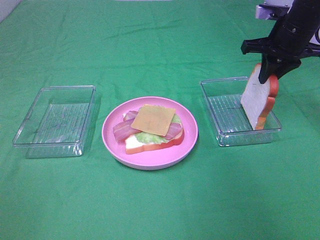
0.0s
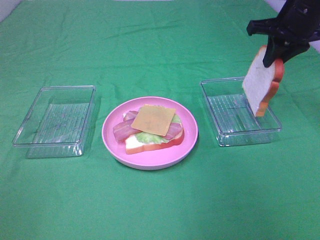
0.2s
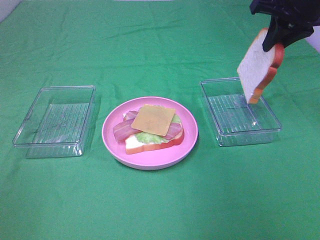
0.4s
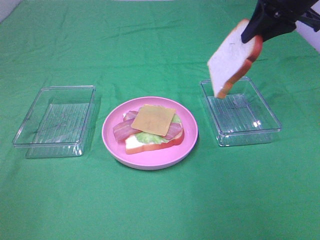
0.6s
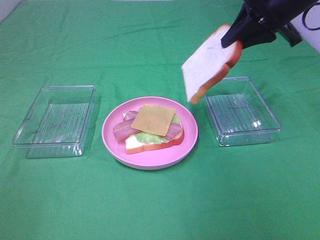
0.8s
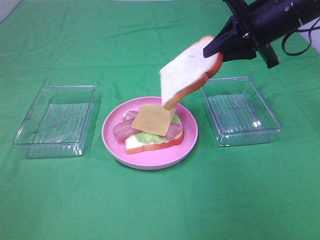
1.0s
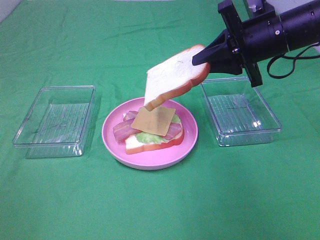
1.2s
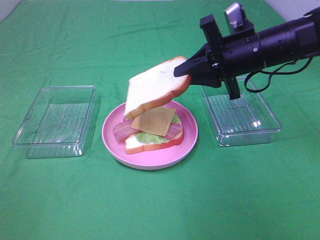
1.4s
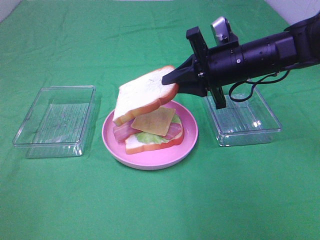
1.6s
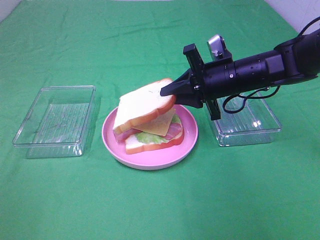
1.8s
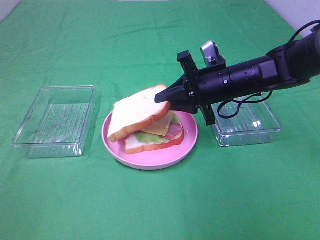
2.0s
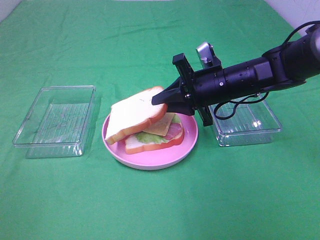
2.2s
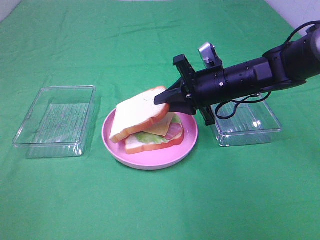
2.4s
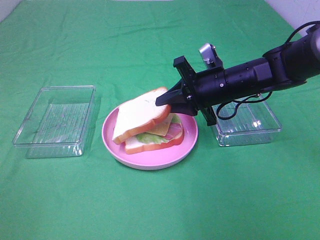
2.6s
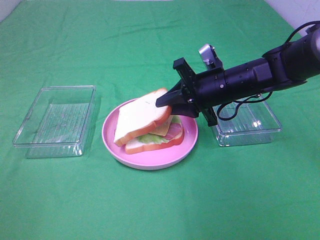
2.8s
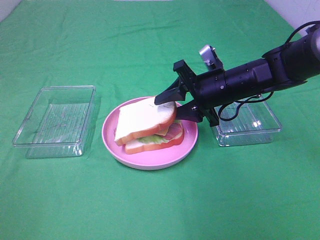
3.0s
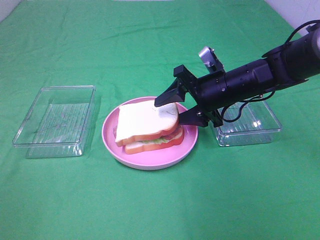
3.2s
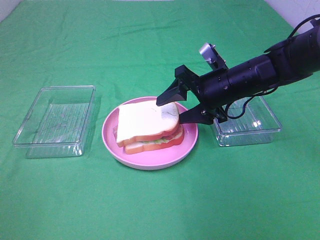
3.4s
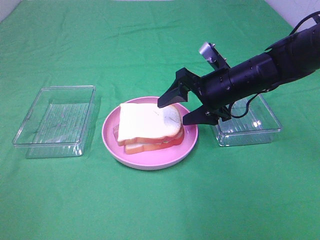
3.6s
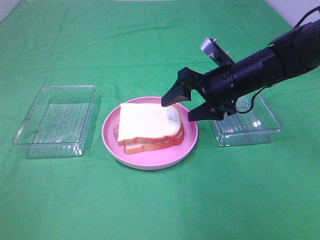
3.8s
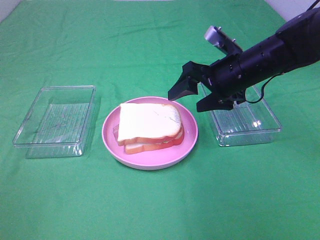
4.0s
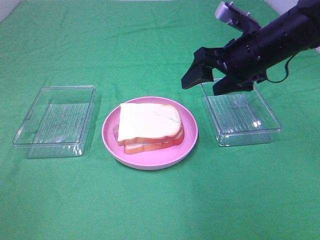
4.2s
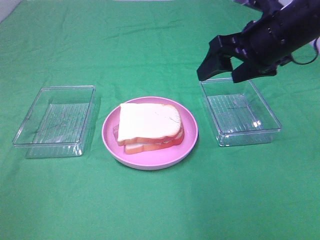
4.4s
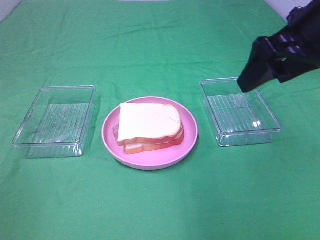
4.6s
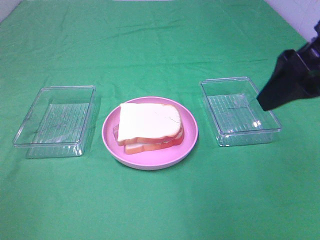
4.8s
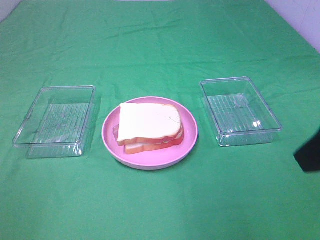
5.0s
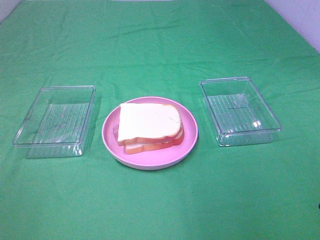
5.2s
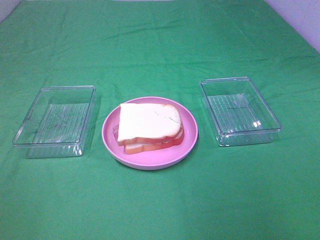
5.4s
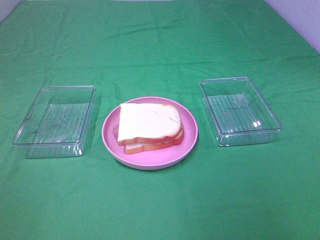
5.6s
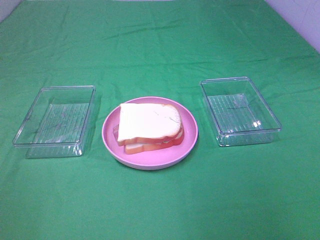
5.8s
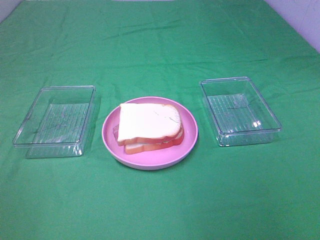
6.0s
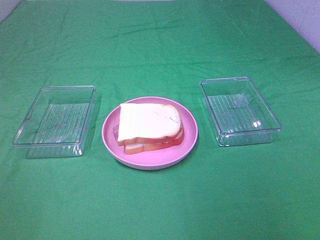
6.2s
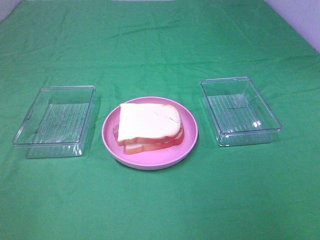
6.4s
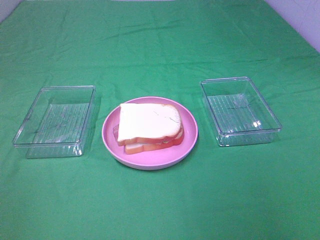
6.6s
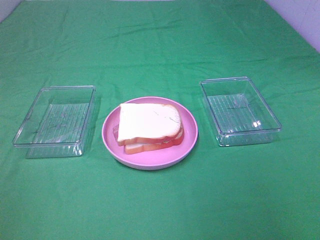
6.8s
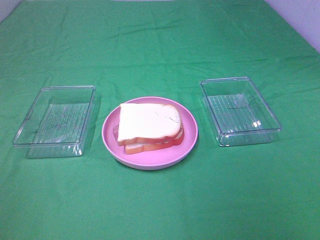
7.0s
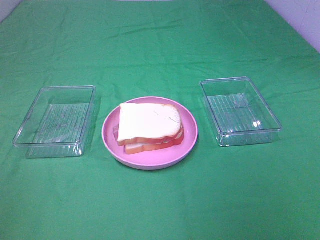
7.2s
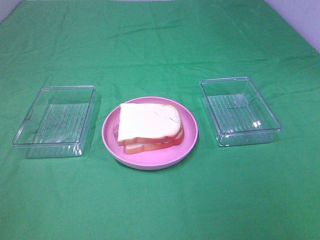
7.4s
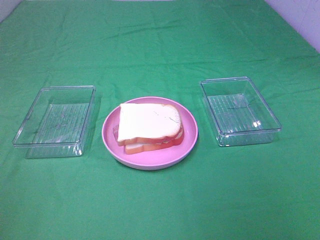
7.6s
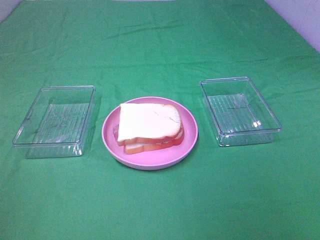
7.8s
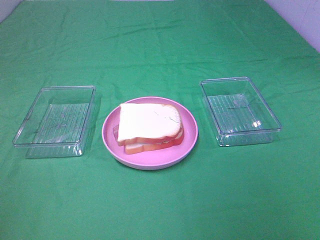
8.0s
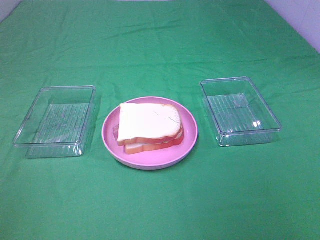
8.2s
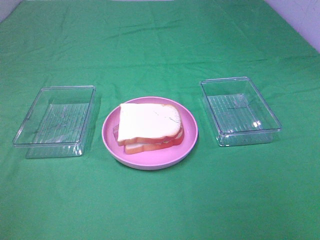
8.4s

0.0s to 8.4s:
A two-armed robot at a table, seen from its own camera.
Task of the whole recording: Make sandwiches.
Step, 0.0s to 3.6s: Right hand:place the bread slice on the cheese slice.
0.0s to 1.4s: The right gripper heads to the left and backward, covering about 10 cm, and goes upward and returns, approximately 10 cm each way.
1.4s to 2.8s: The right gripper shifts approximately 5 cm downward.
2.8s to 4.2s: The right gripper travels upward by about 10 cm, and opens its fingers.
4.2s to 5.6s: The right gripper is displaced backward by approximately 30 cm.

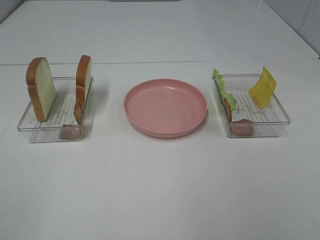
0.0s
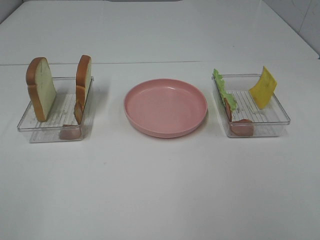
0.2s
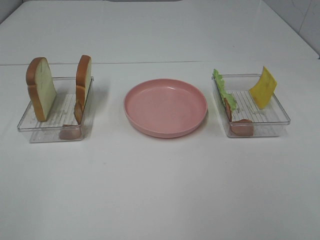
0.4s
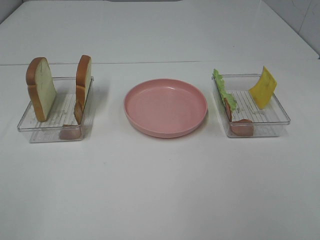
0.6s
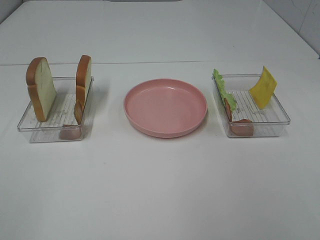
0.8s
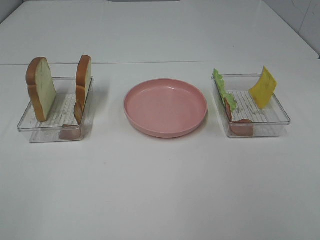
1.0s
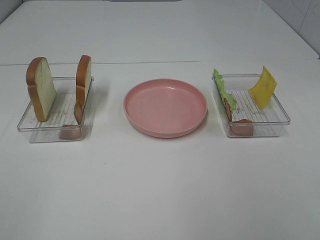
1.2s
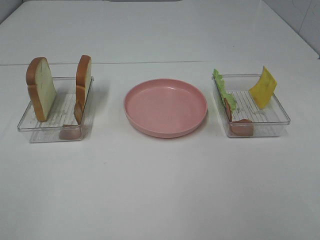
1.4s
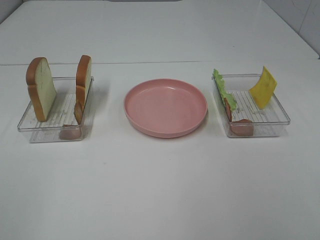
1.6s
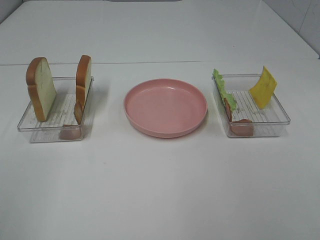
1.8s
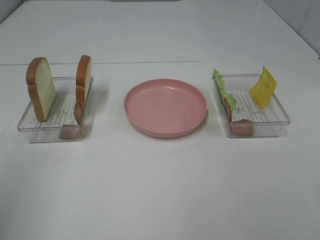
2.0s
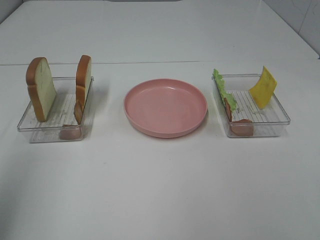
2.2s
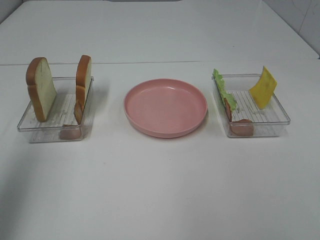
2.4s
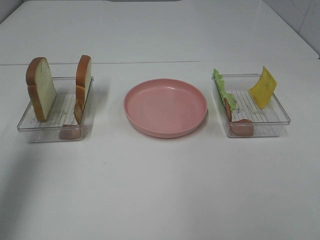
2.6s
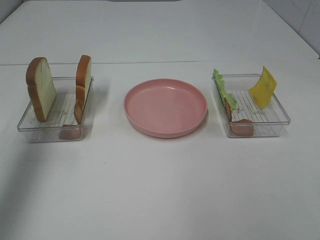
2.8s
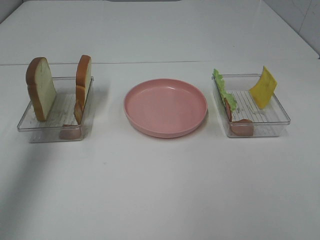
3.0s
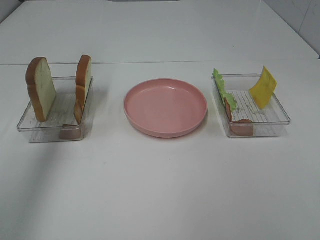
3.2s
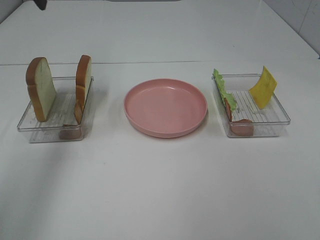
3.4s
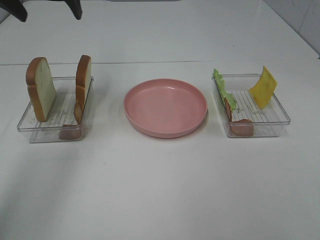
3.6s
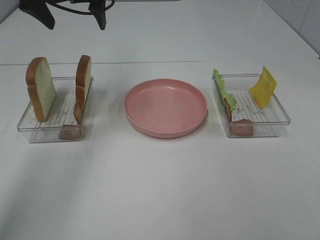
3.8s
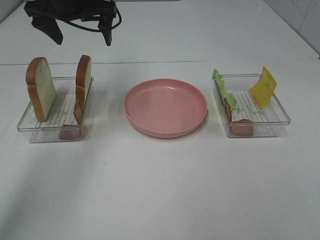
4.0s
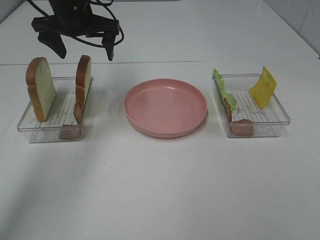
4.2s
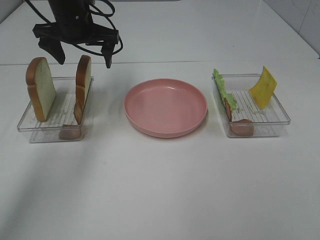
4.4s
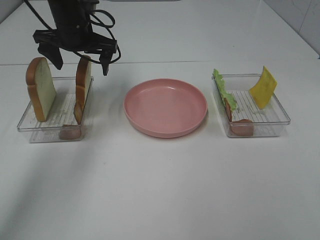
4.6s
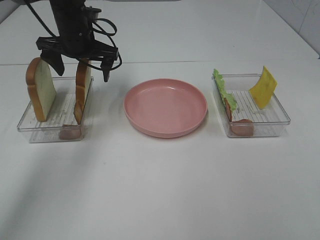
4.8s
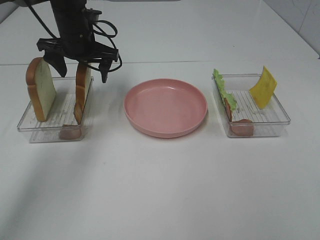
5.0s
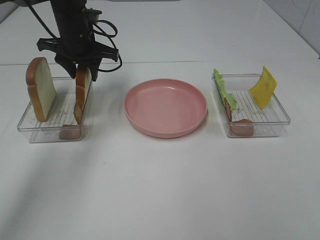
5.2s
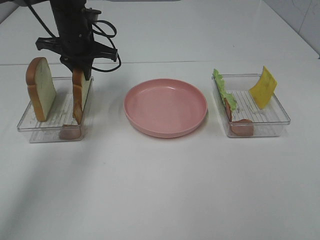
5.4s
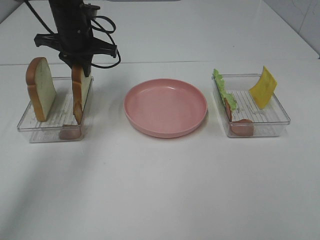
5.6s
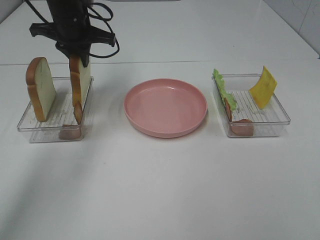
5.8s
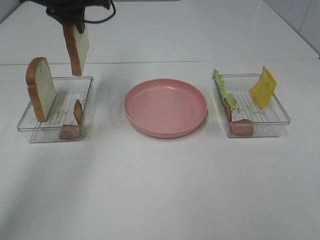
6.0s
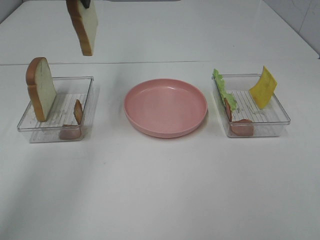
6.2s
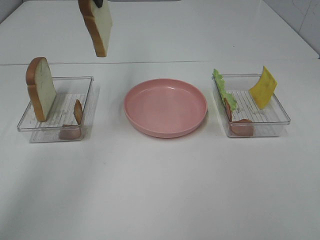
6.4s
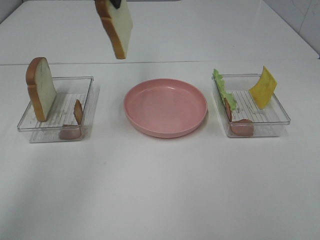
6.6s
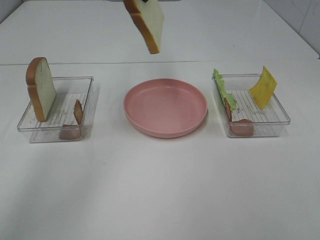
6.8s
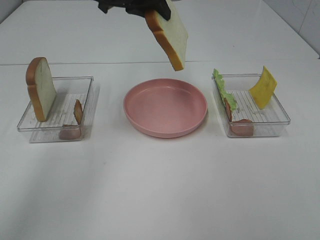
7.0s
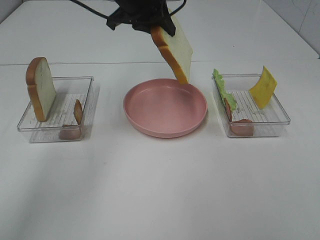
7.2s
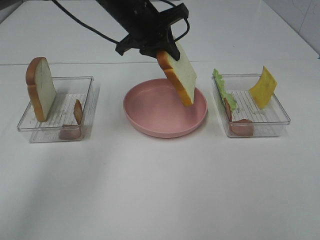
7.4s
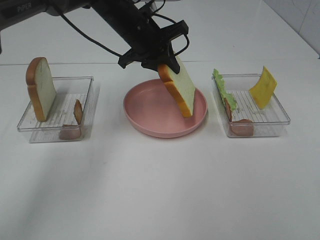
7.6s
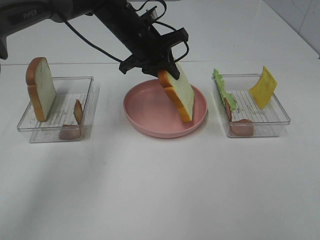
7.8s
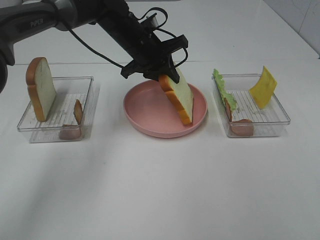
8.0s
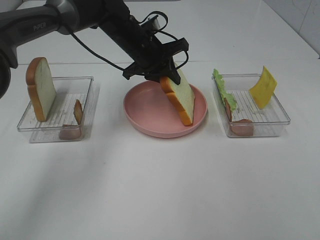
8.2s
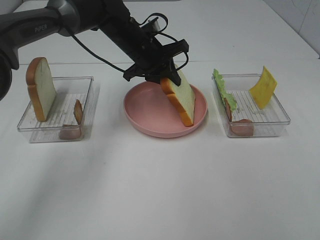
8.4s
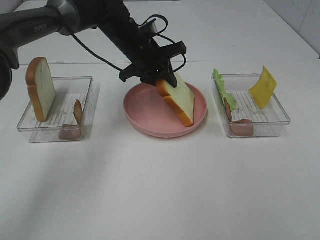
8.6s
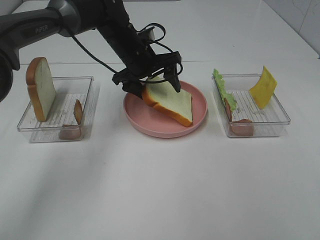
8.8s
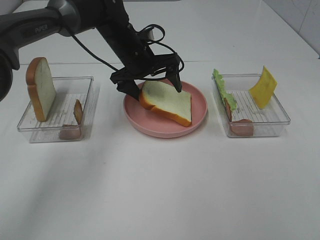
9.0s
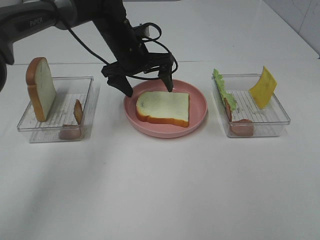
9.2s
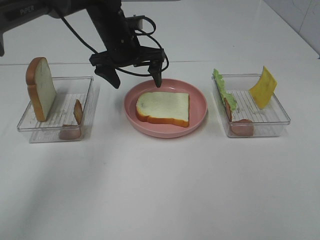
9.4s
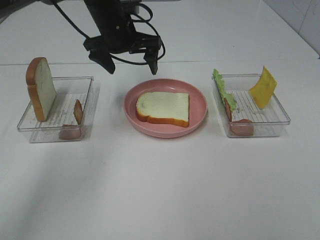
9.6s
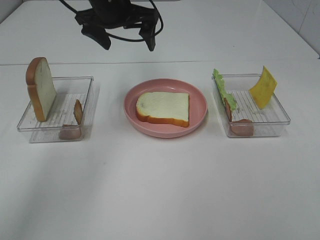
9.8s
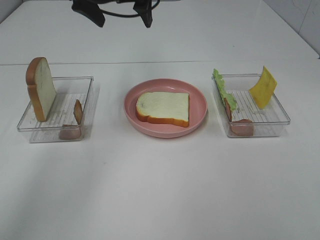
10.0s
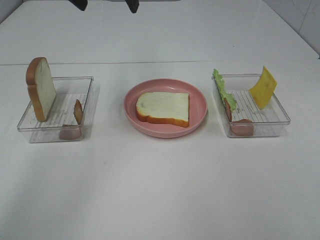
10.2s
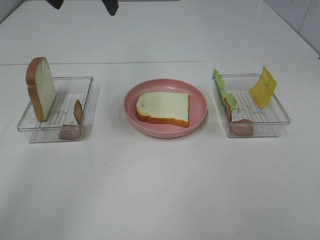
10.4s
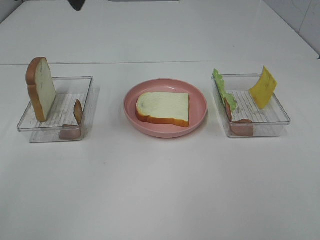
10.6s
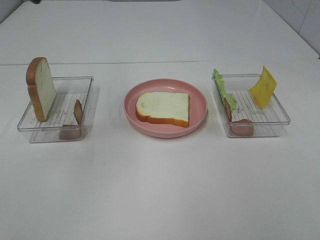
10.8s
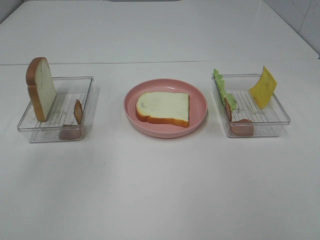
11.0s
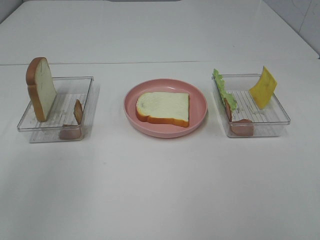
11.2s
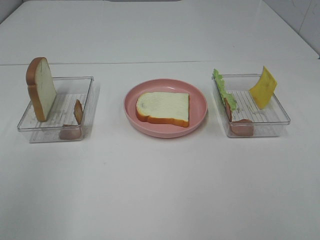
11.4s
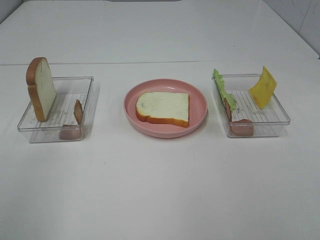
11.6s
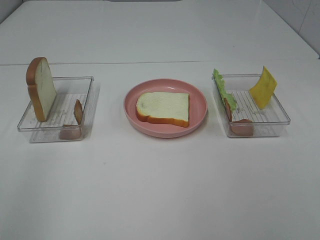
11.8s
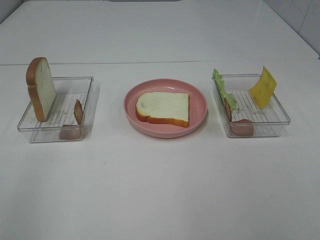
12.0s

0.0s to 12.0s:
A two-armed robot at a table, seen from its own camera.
Task of the whole recording: Make sandwiches.
Step, 0.0s to 5.4s: Left hand:grab the bread slice.
Step, 5.6s to 9.2s: Left hand:place the bread slice on the plate.
1.6s to 3.0s: The left gripper goes some 35 cm forward.
3.0s to 4.4s: The left gripper moves downward, forward and to the right, some 25 cm.
4.4s to 6.0s: The left gripper goes approximately 5 cm upward, and closes.
6.0s to 7.6s: The left gripper travels to the right and downward by about 15 cm.
7.6s to 9.0s: The left gripper goes roughly 5 cm downward, and opens up.
9.0s to 10.4s: The left gripper goes some 25 cm upward and backward.
10.4s to 12.0s: The left gripper moves backward and to the left, about 35 cm.

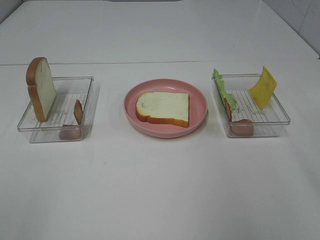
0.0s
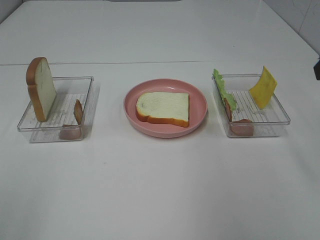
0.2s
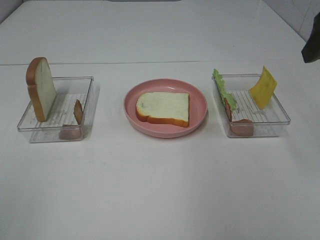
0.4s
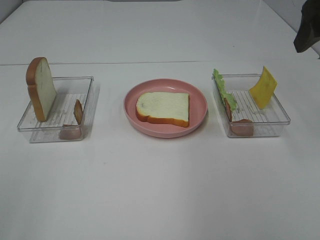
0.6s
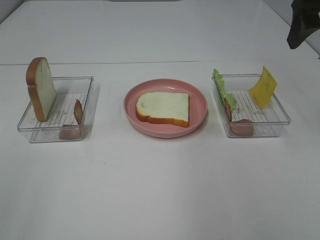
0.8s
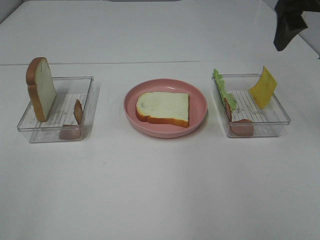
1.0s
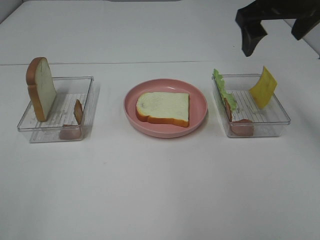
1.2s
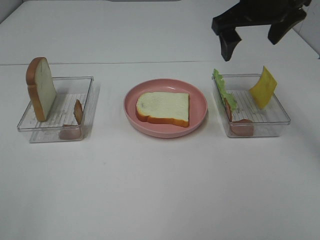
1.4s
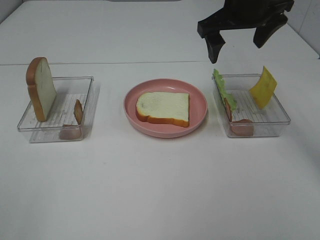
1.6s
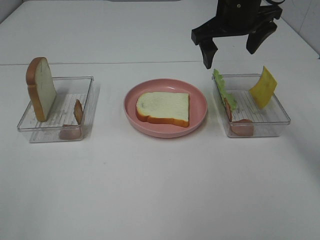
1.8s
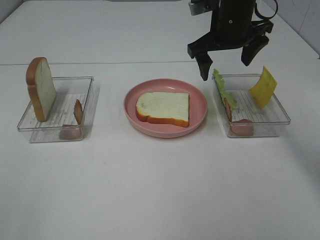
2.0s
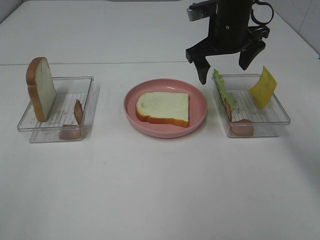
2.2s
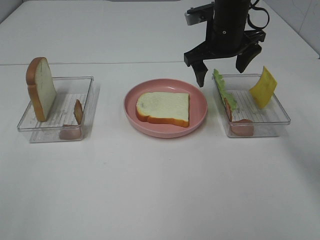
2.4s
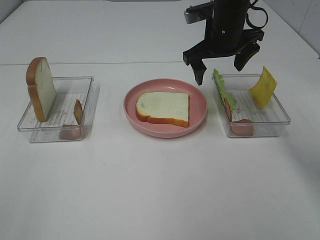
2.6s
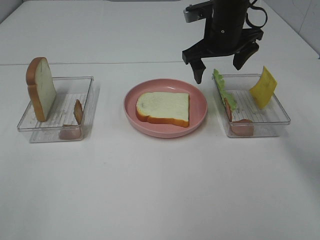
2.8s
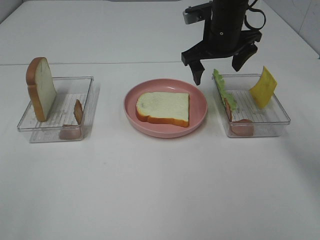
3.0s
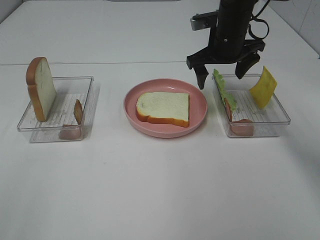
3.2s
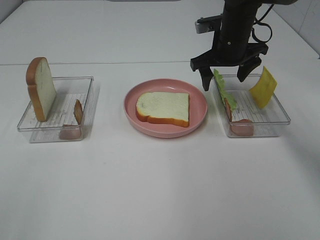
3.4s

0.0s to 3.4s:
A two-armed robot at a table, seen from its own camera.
Task of the whole recording: Make sandwiches.
0.0s to 1.6s: The right gripper moves forward and to the left, about 25 cm.
1.6s to 3.4s: The right gripper moves downward and forward, some 10 cm.
